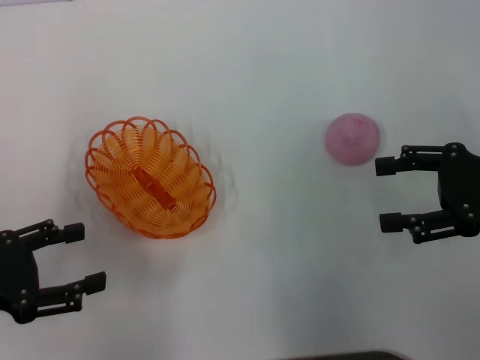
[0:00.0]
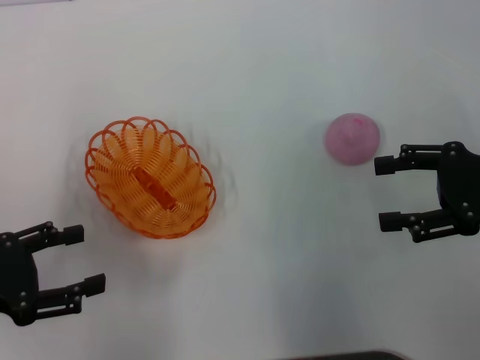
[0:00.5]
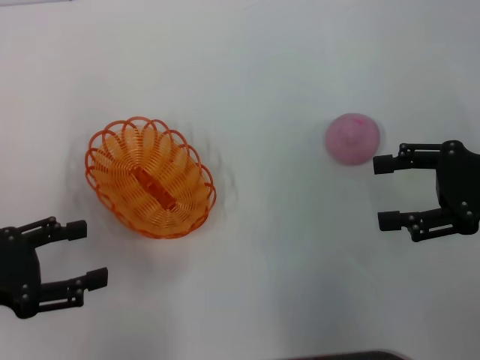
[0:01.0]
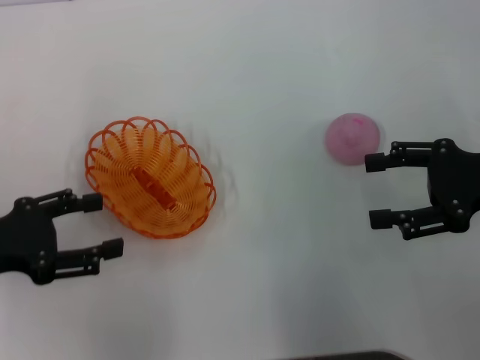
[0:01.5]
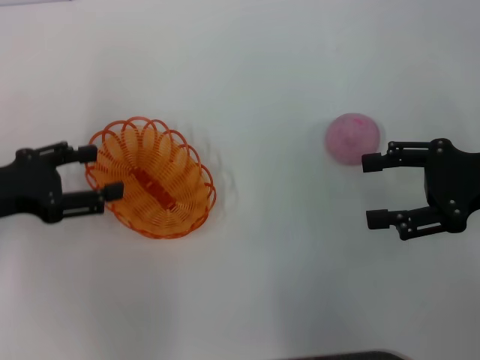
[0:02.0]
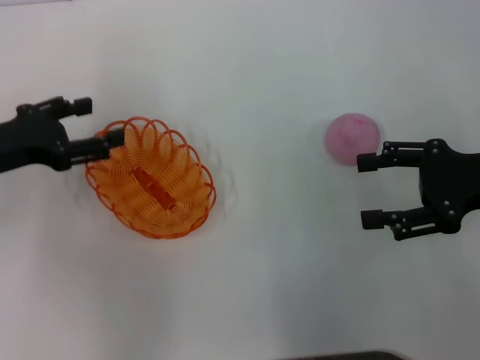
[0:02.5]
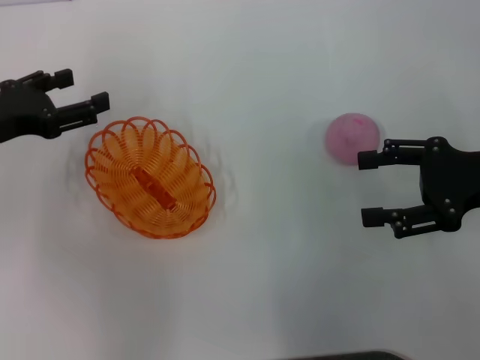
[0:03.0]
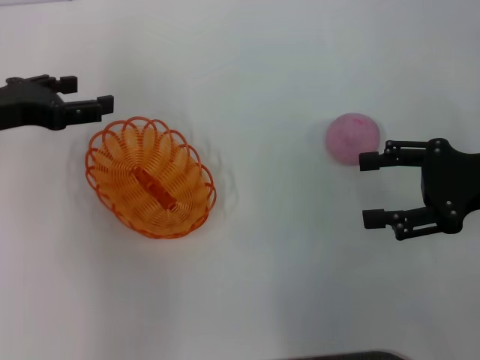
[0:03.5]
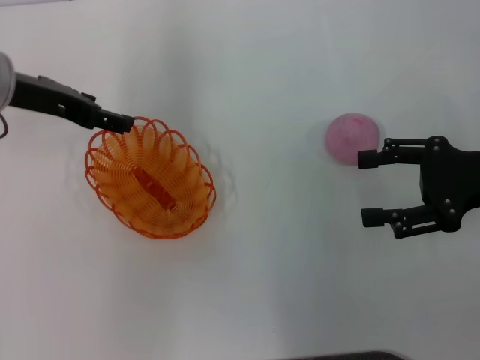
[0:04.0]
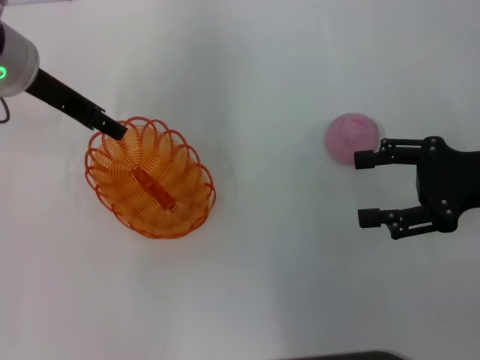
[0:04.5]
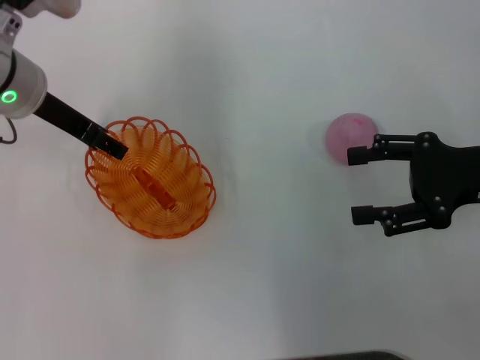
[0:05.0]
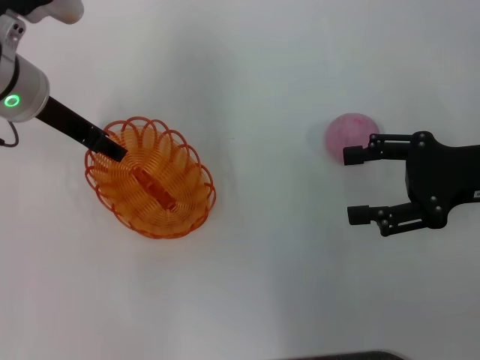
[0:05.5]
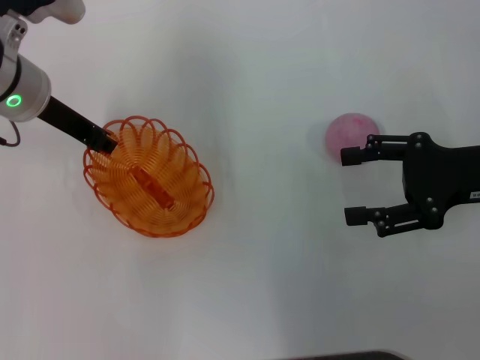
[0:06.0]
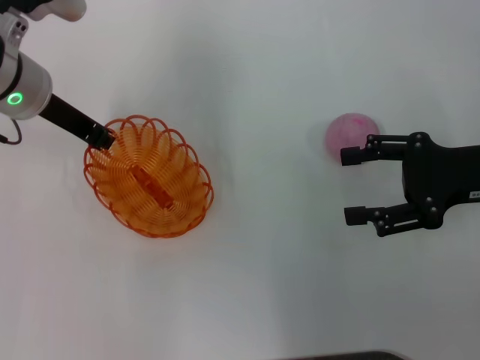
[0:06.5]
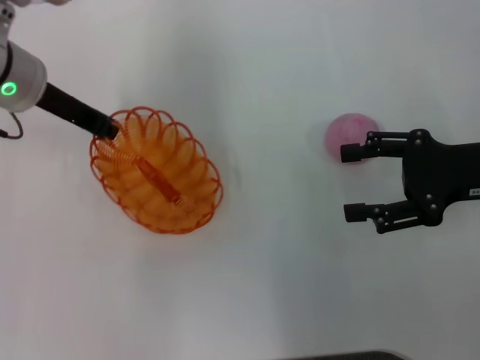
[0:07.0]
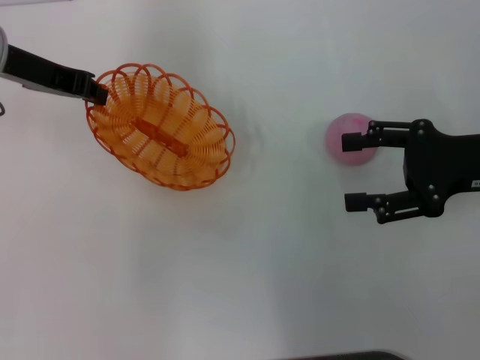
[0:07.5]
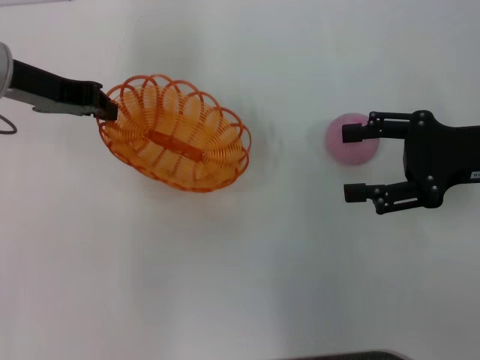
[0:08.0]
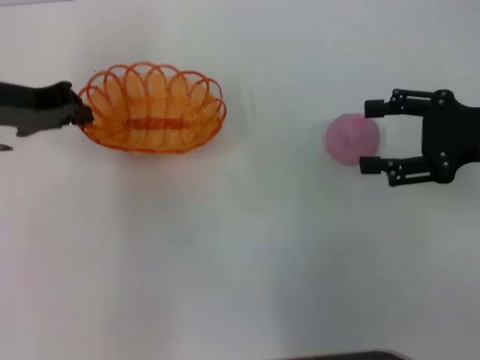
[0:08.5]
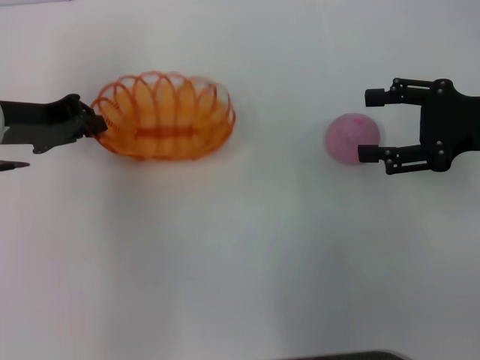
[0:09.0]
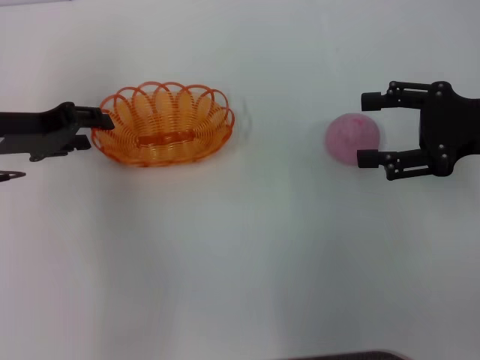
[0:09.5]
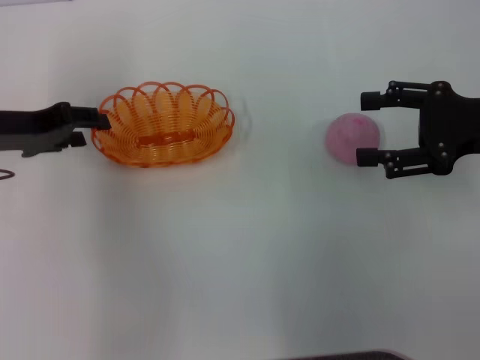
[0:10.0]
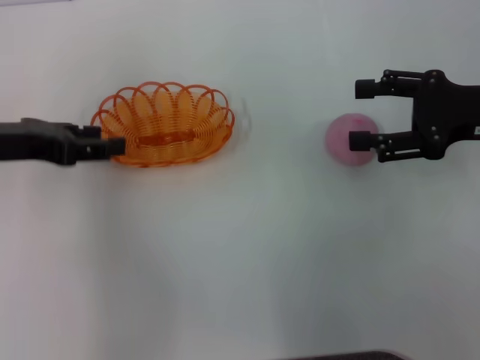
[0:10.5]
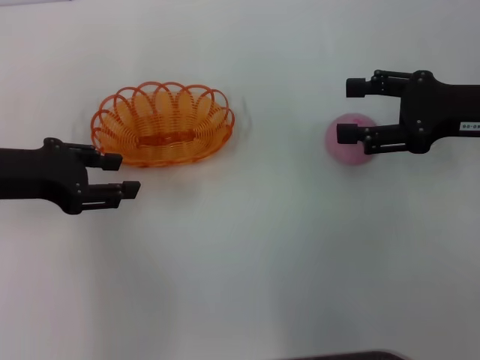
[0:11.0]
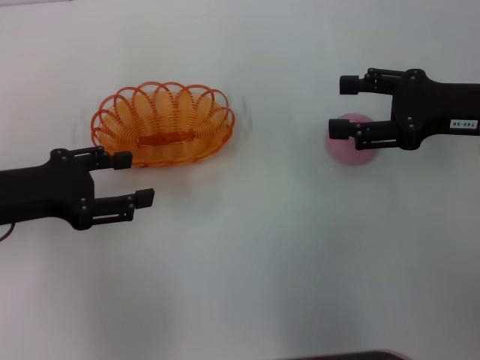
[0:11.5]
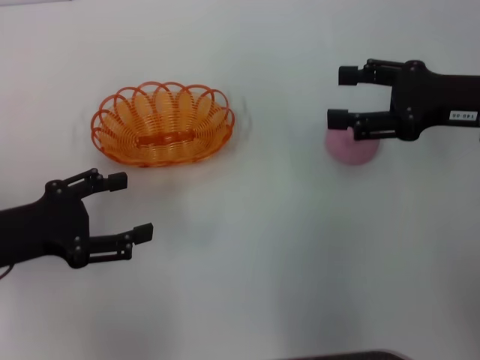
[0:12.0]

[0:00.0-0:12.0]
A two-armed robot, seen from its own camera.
Step, 0:00.0 to 0:07.5: Pick up the basket with the left gripper.
0:00.0 to 0:02.0: The left gripper is displaced forward by some 5 cm.
0:02.0 to 0:04.0: The left gripper moves forward, to the right and upward, about 15 cm.
0:04.0 to 0:06.0: The left gripper closes its fingers.
0:06.0 to 0:08.0: The left gripper closes.
0:08.0 to 0:10.0: The left gripper is displaced downward by about 5 cm, and opens up.
0:10.0 to 0:12.0: The left gripper shifts approximately 10 cm backward, and opens its fingers.

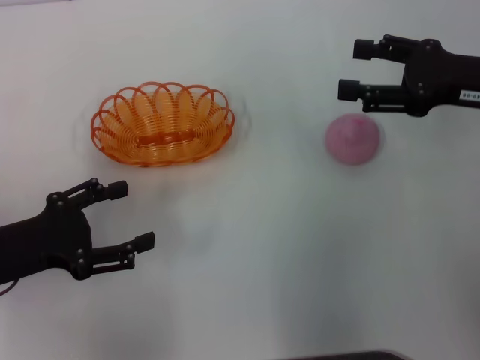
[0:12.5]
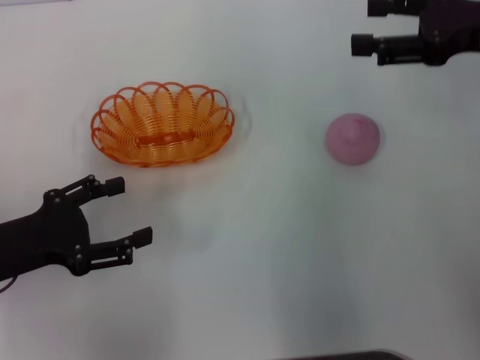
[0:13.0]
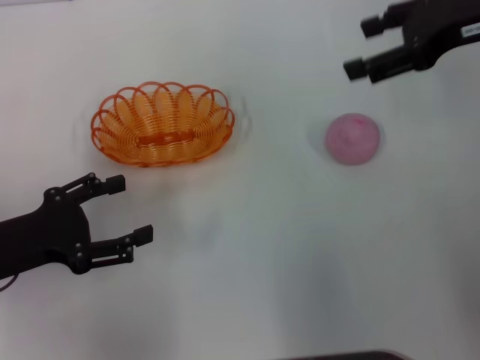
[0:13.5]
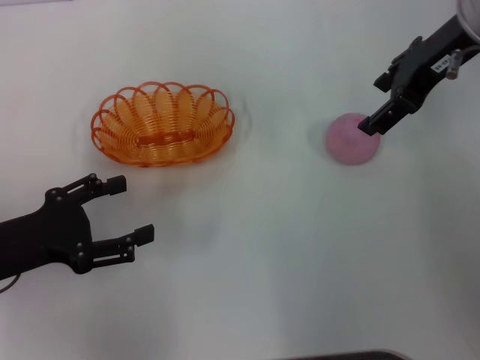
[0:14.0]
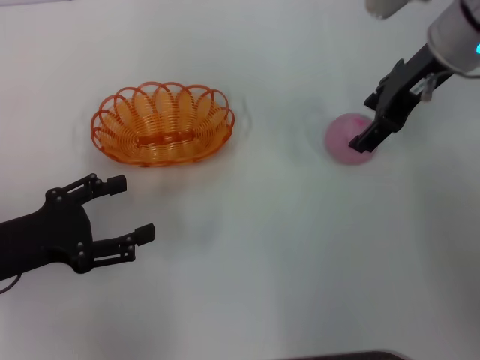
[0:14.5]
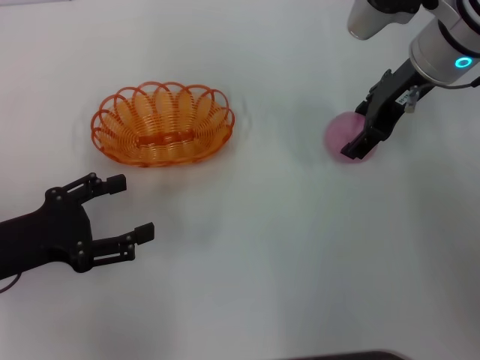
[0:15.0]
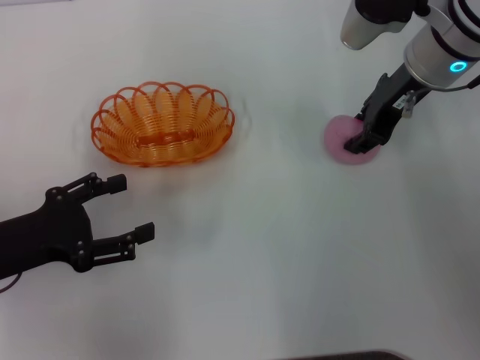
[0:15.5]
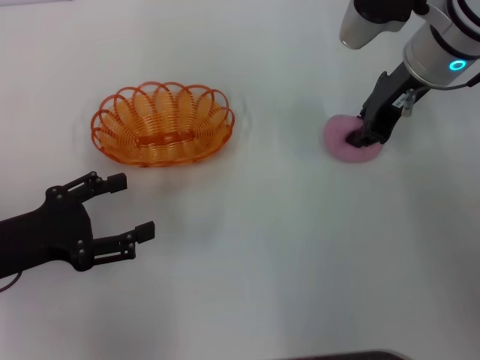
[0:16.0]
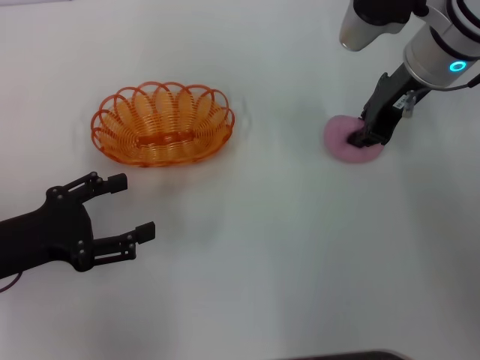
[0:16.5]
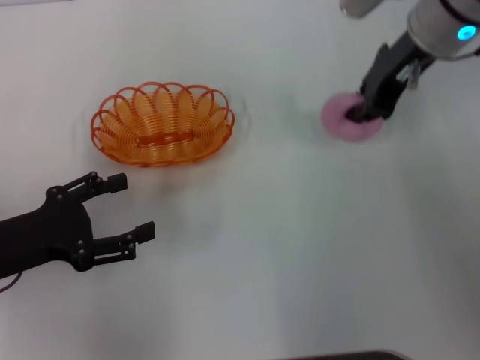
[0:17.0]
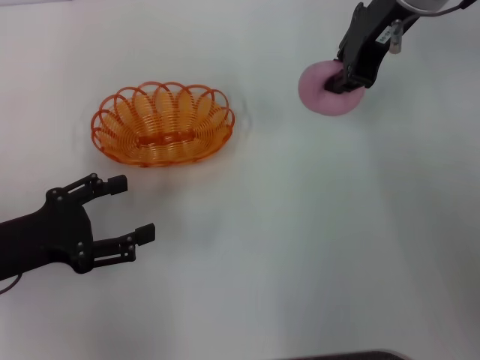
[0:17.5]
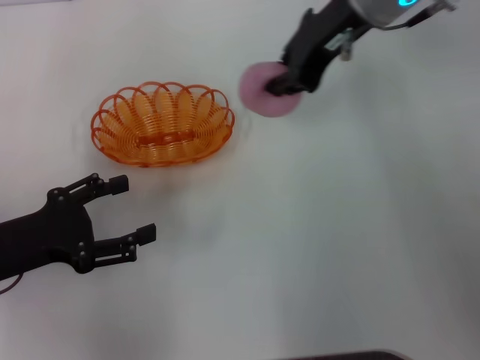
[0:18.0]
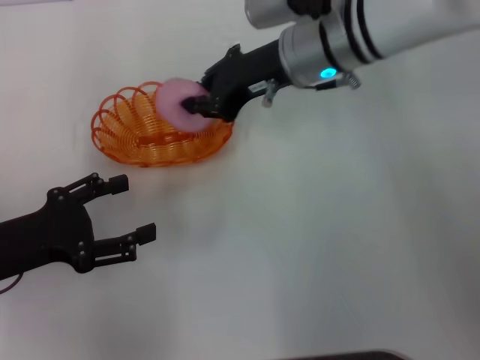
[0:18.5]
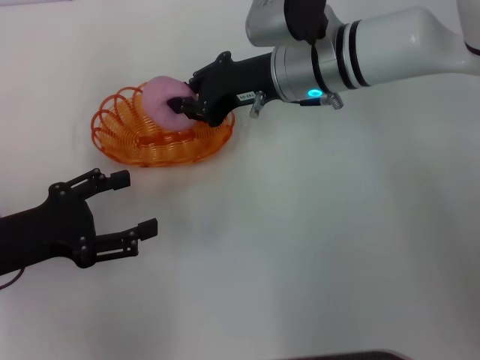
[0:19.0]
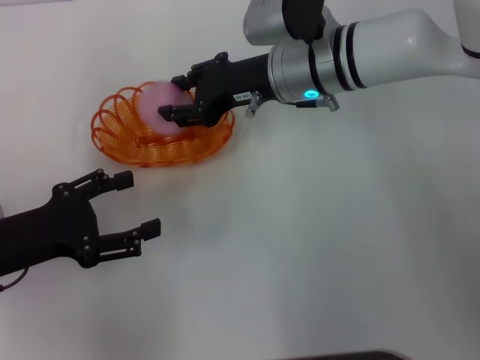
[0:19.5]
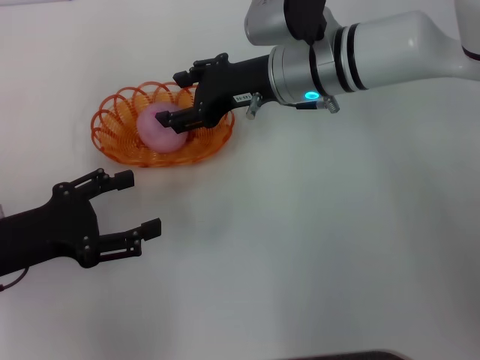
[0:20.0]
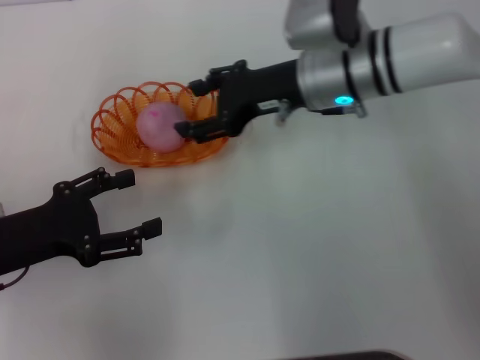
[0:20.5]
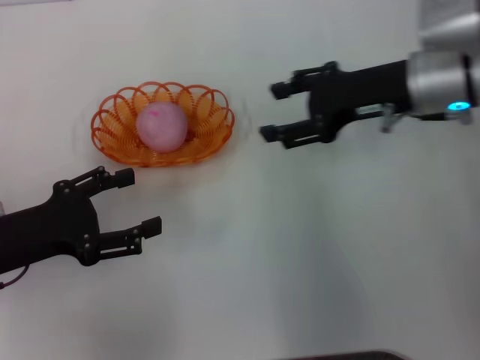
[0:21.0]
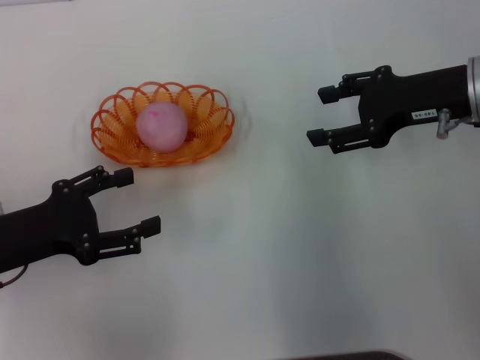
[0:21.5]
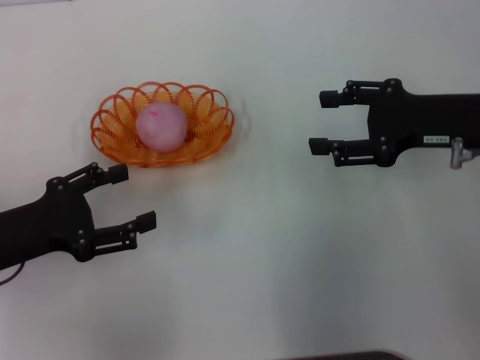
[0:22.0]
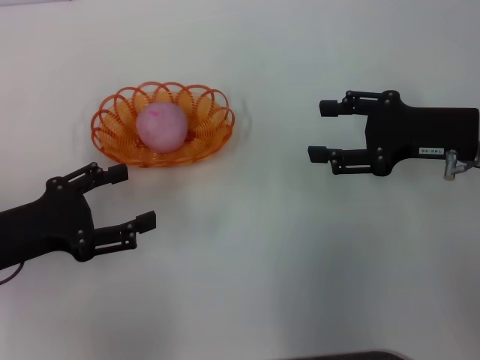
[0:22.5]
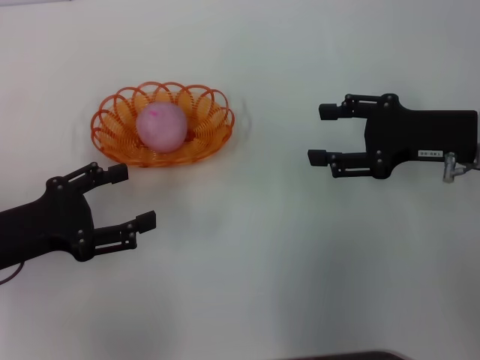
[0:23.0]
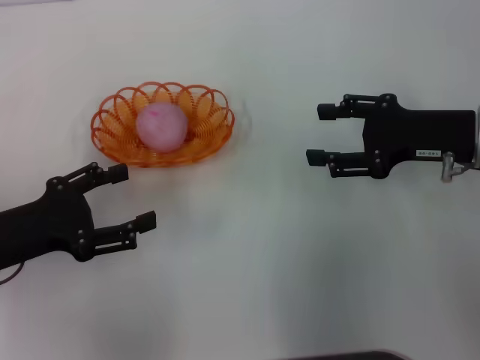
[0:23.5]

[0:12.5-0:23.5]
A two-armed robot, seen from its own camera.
Step, 0:12.5 to 0:17.0: Pick up the peach with the right gripper.
Step, 0:17.5 to 0:20.5: Place the peach into the basket with the right gripper.
0:12.5 to 0:14.5: The right gripper moves to the left and forward, about 10 cm.
0:14.5 to 0:16.0: The right gripper closes its fingers.
0:16.0 to 0:18.0: The right gripper heads upward and to the left, covering about 10 cm.
0:18.0 to 0:20.0: The right gripper is displaced downward by some 10 cm, and opens.
0:20.0 to 0:21.5: The right gripper heads to the right, covering about 15 cm.
0:21.5 to 0:23.5: The right gripper moves some 5 cm.

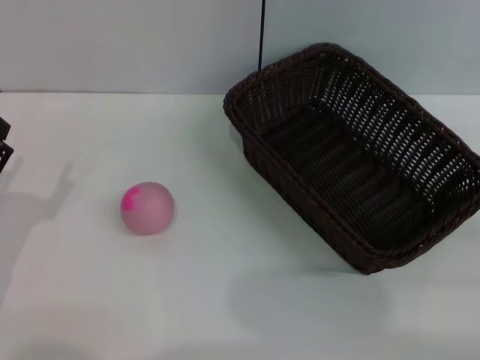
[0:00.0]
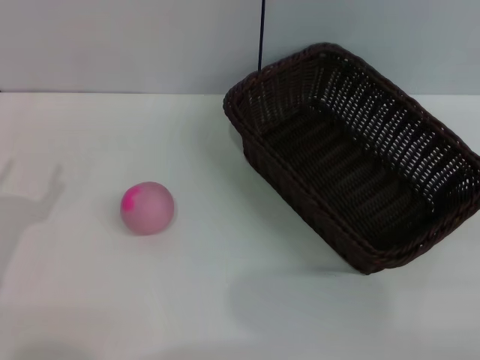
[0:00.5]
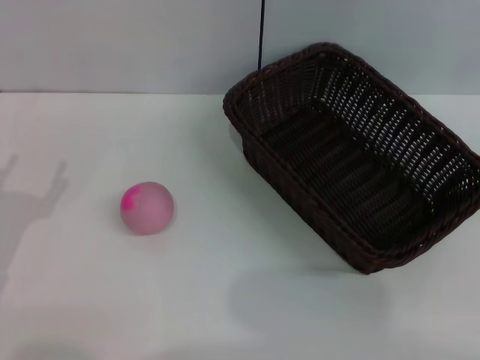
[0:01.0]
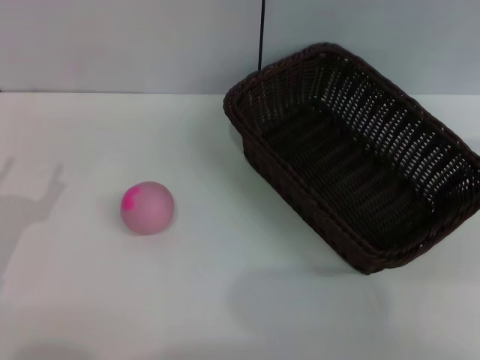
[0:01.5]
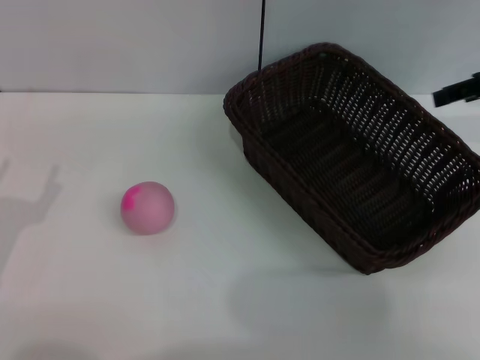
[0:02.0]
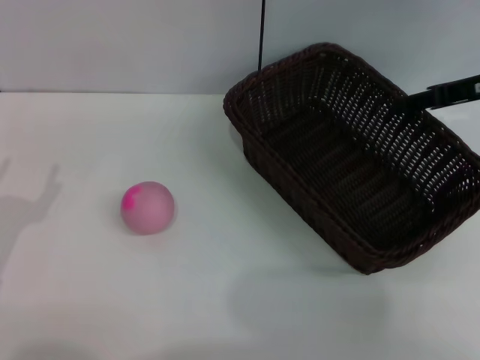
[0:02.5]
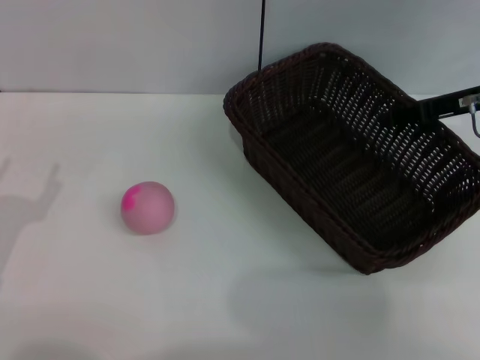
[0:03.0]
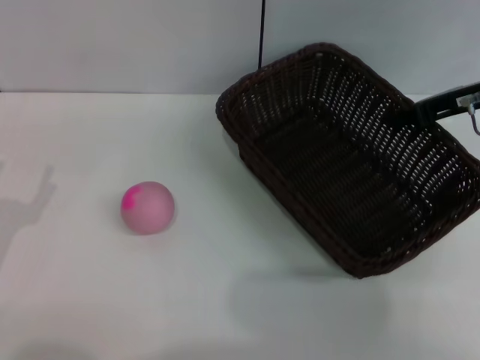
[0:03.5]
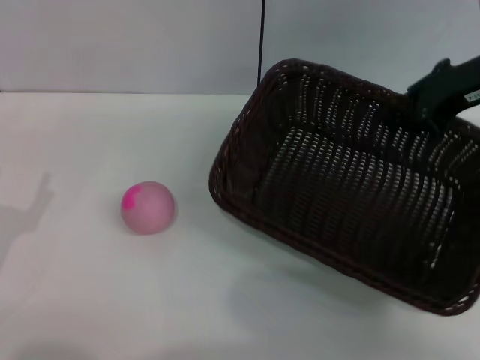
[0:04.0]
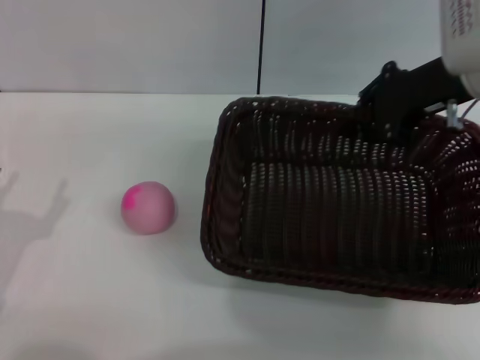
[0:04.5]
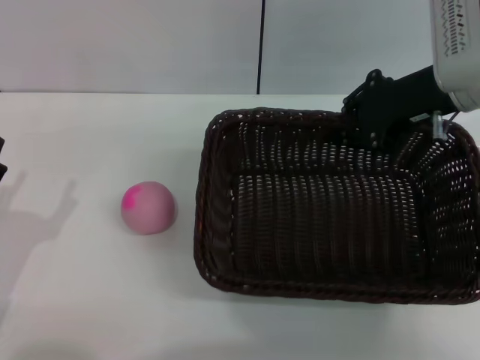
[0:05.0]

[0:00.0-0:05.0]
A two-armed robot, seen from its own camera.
Step, 0:00.0 to 0:04.0: Pick up the dark basket with the right gripper.
0:00.0 to 0:02.5: The right gripper moves forward, to the left and upward, roughly 30 cm.
0:02.5 to 0:05.0: The right gripper goes approximately 10 cm to the left, and closes.
